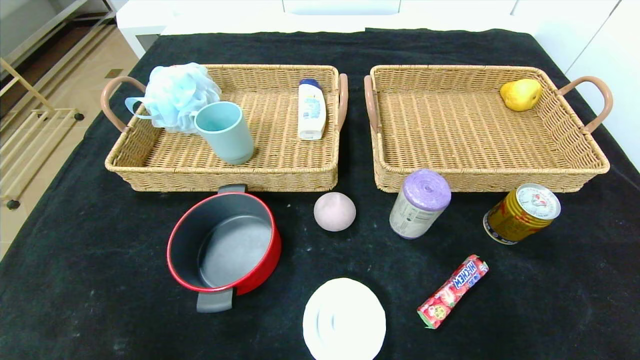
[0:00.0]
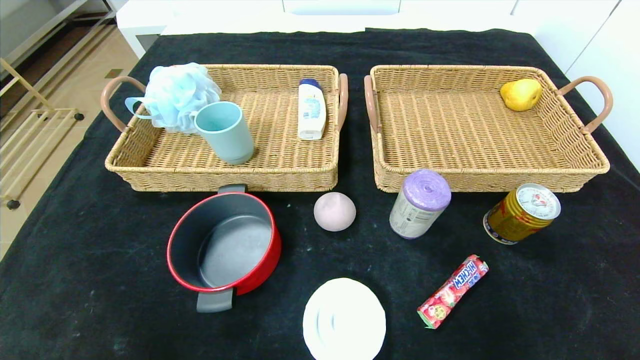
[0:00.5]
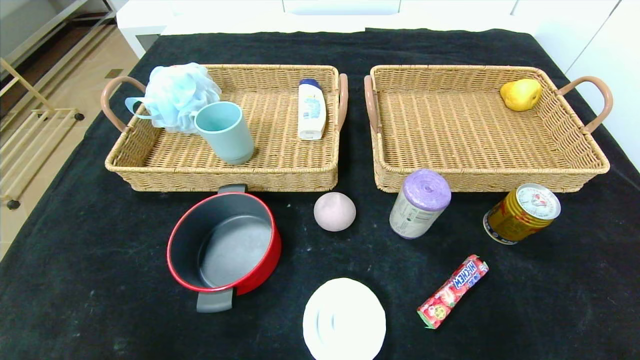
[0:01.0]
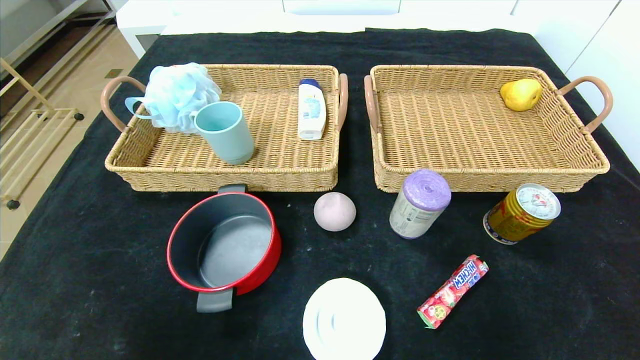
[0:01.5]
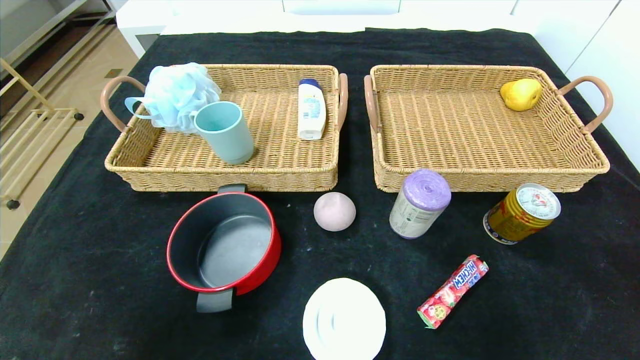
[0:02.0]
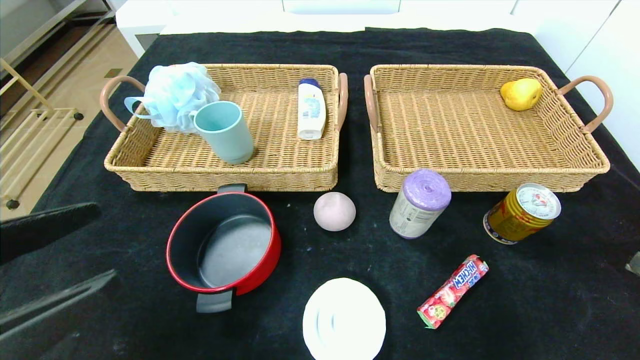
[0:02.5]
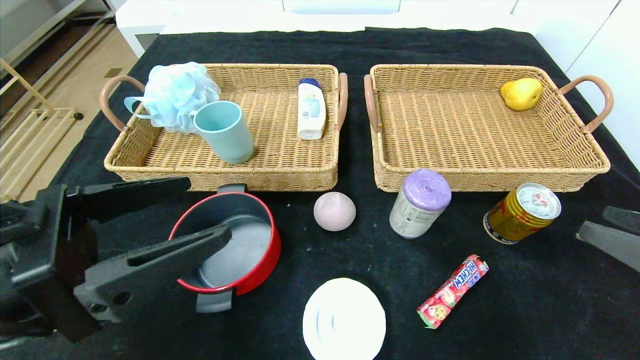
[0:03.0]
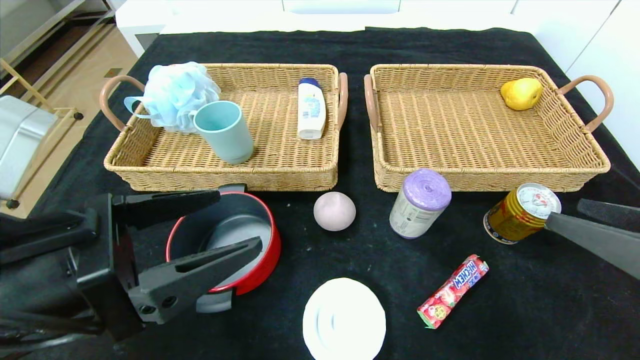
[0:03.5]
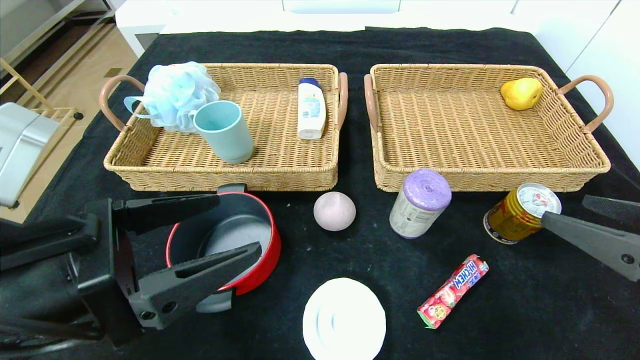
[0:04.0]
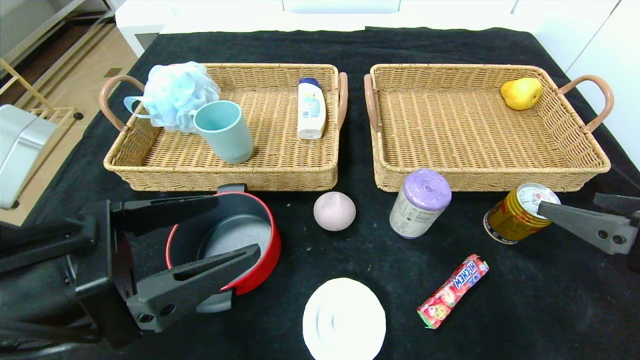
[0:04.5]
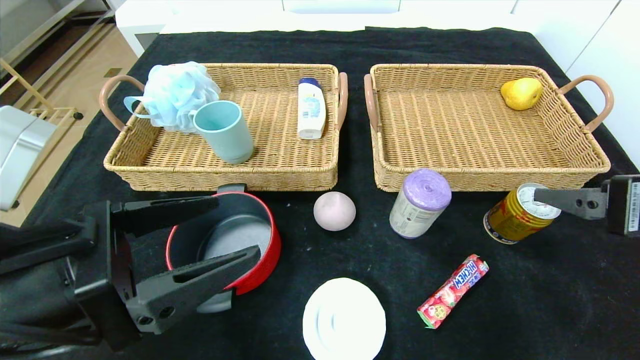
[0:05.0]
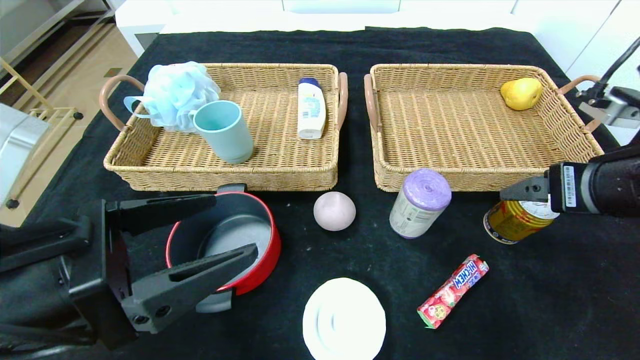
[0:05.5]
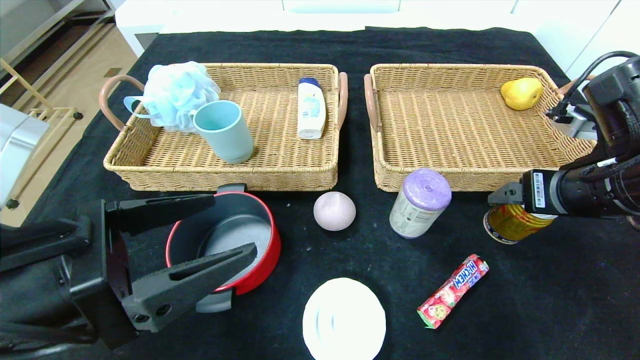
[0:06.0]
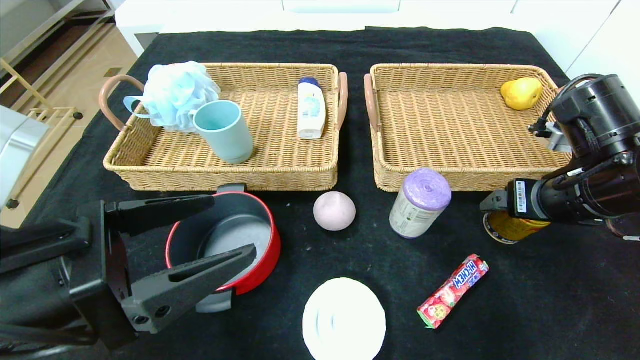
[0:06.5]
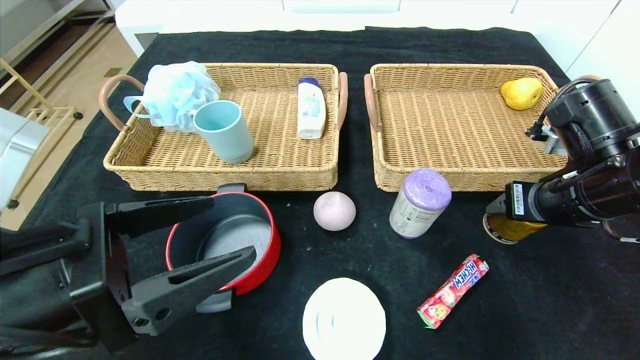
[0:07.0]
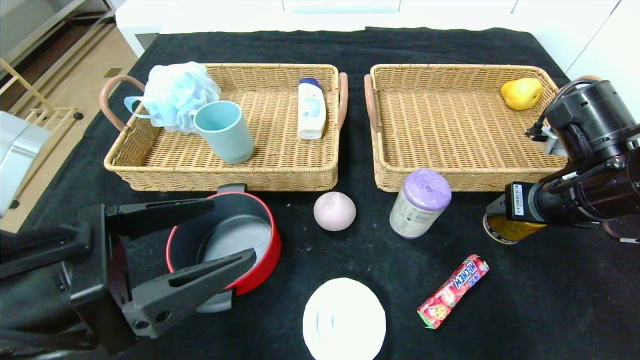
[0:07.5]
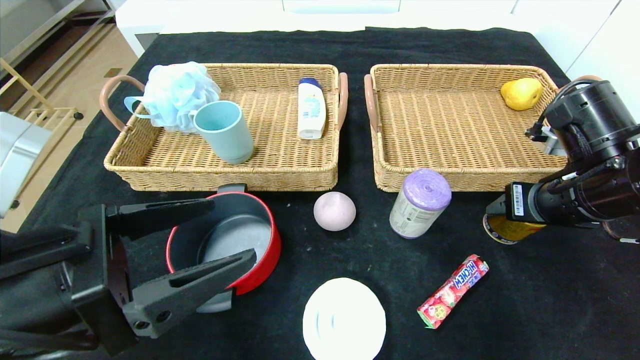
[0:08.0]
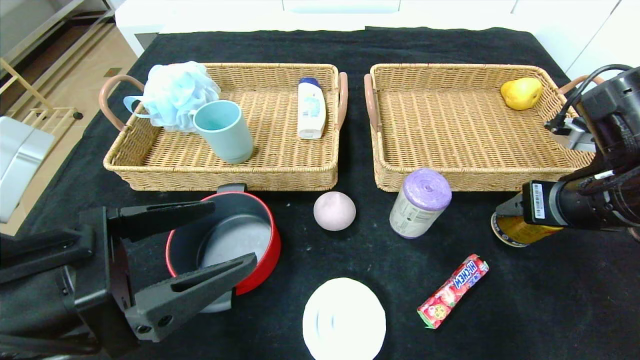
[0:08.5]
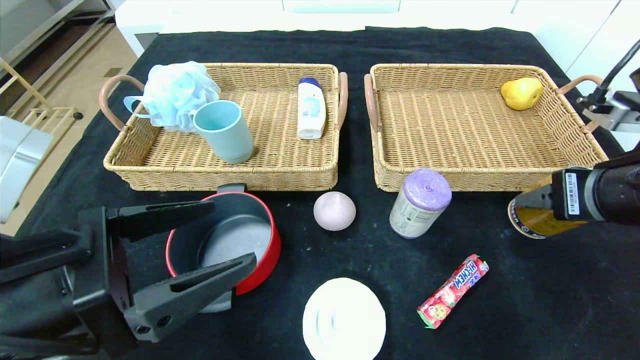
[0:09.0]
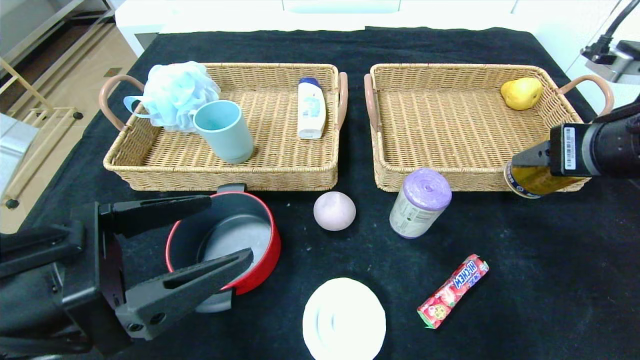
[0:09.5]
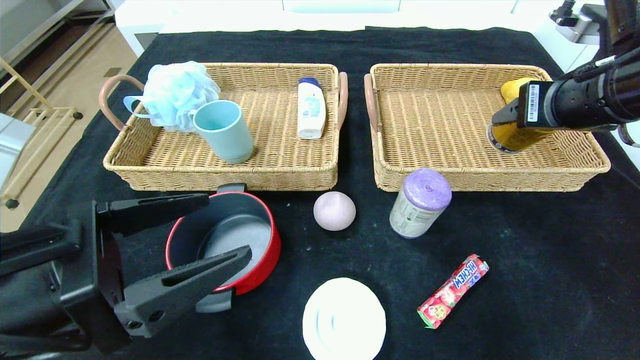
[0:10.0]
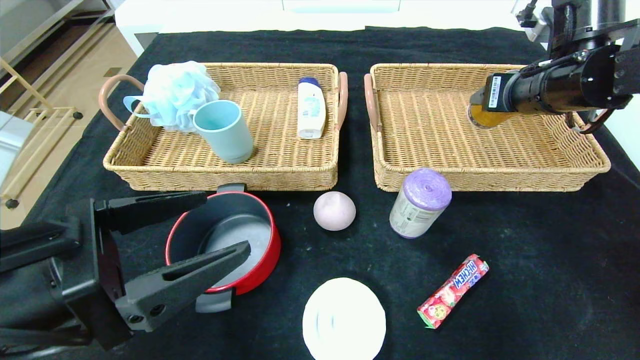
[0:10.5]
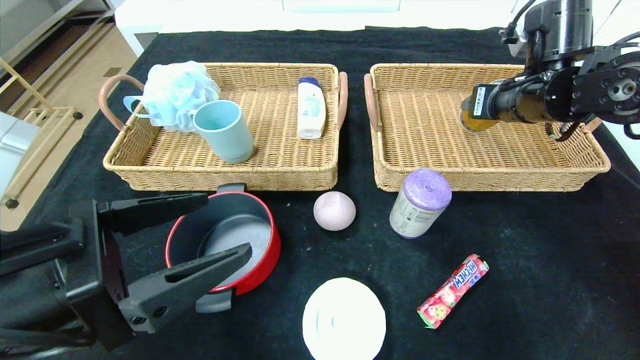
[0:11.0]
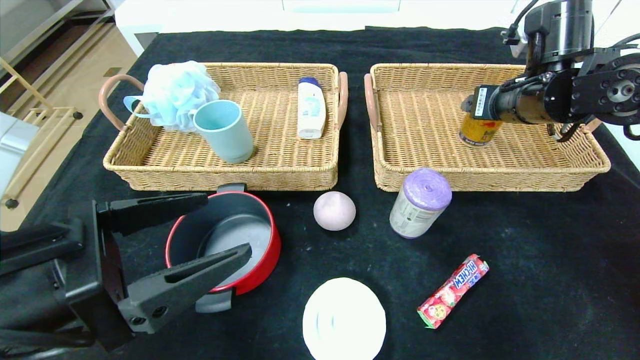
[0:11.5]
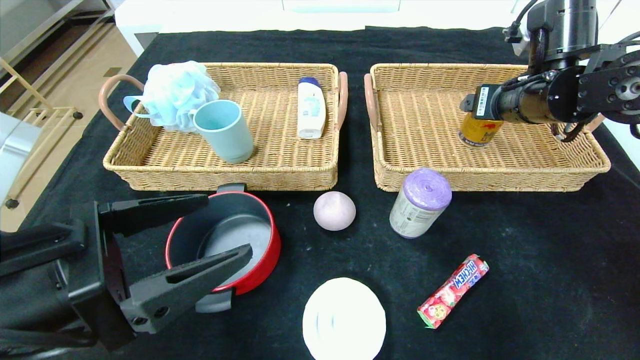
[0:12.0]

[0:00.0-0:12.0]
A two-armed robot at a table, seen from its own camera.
Step, 0:00.0 to 0:12.0: Grasp the Red Bull and put it in the right basket.
0:02.0 to 0:04.0: The left gripper heads forward and to the right, covering some 15 cm. Meanwhile the right gripper is displaced forward and to the left by roughly 15 cm.
0:04.0 to 0:06.0: The right gripper heads forward, covering approximately 10 cm.
0:06.0 to 0:08.0: The grippers stay close to where they were, moving slightly.
0:08.0 to 0:10.0: The right gripper heads upward, covering approximately 10 cm.
0:10.0 to 0:12.0: The right gripper travels forward by approximately 10 cm.

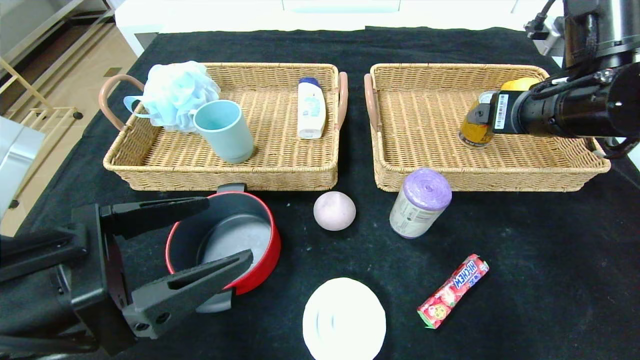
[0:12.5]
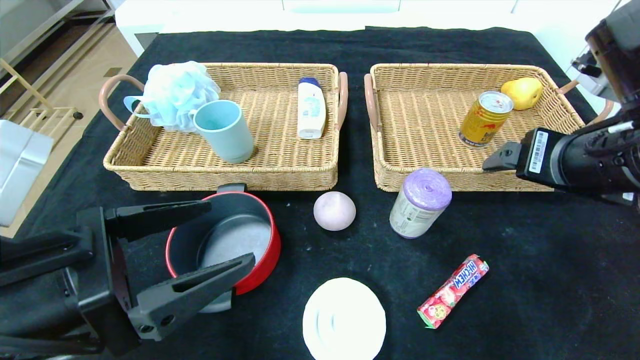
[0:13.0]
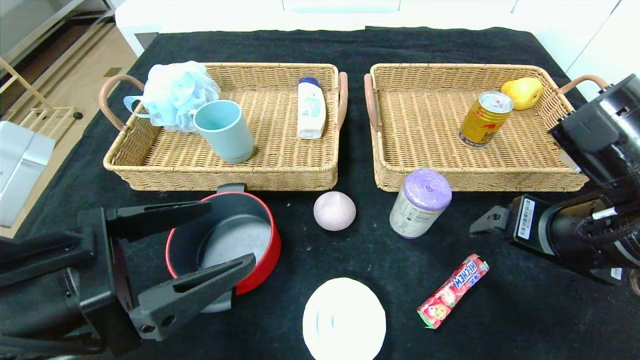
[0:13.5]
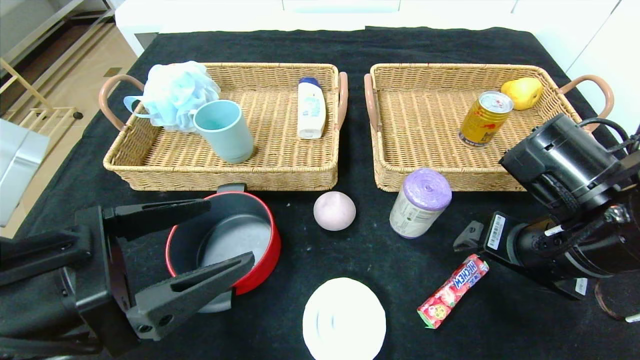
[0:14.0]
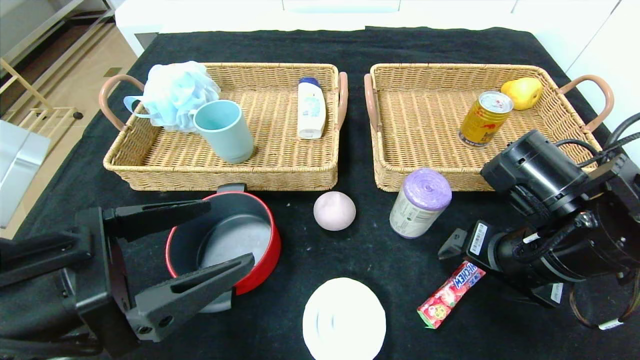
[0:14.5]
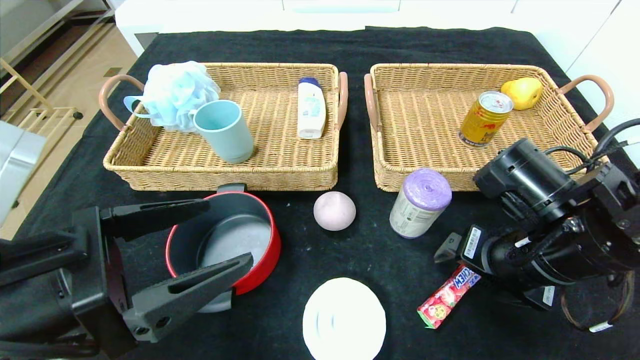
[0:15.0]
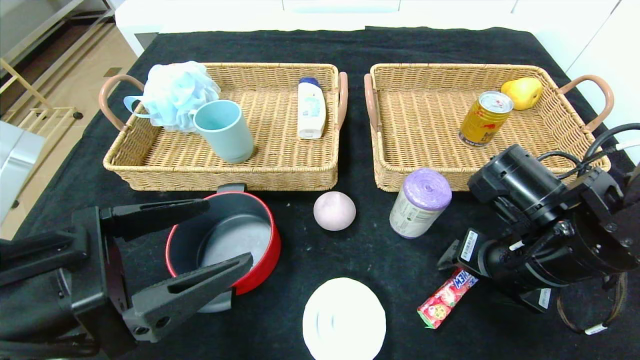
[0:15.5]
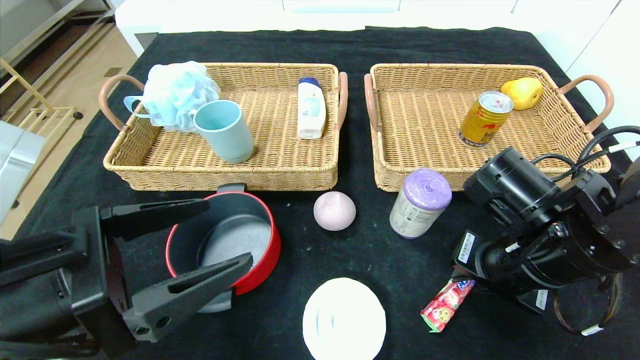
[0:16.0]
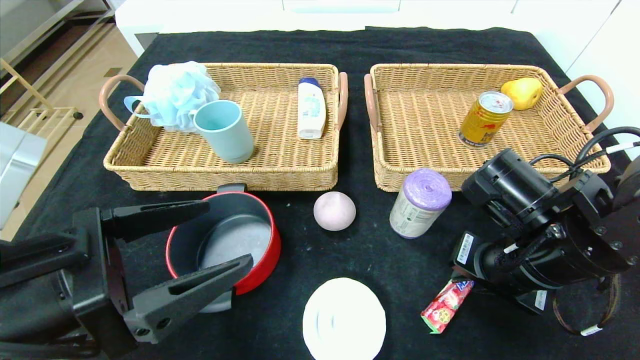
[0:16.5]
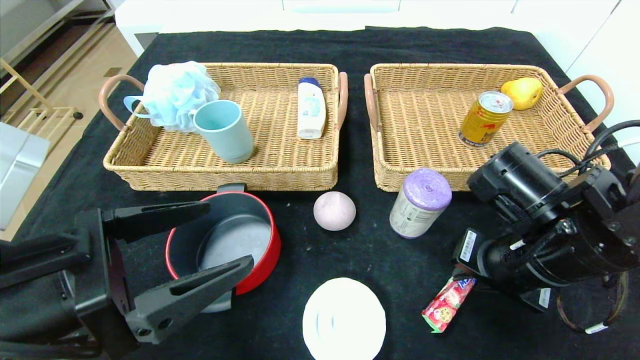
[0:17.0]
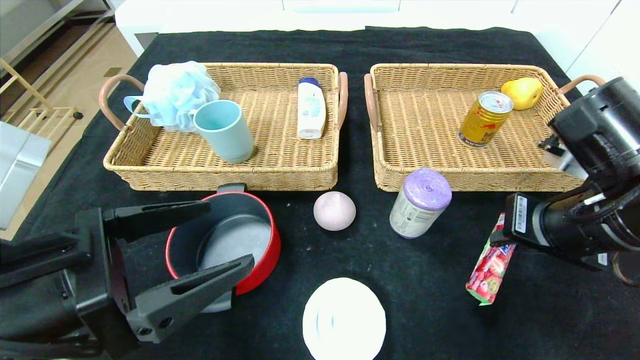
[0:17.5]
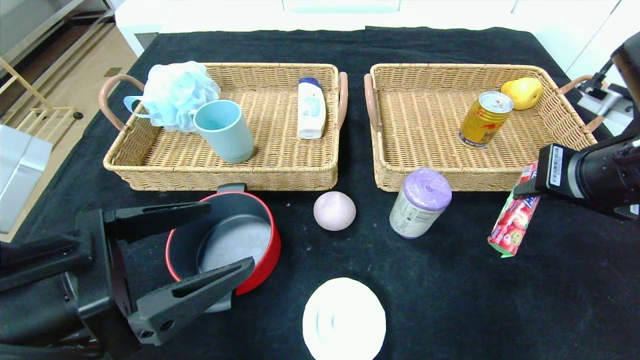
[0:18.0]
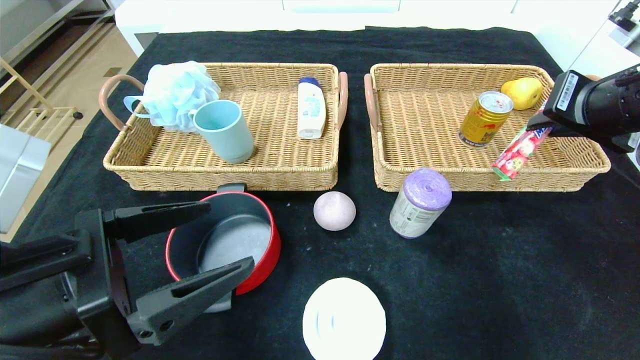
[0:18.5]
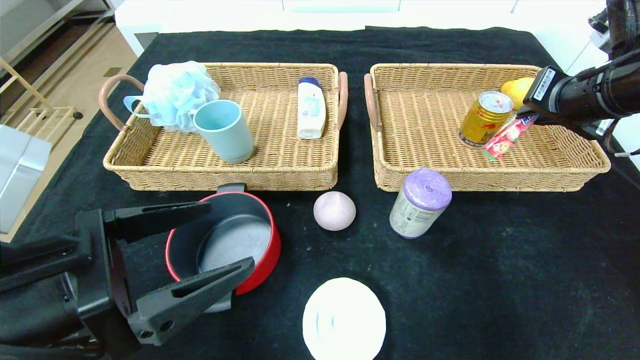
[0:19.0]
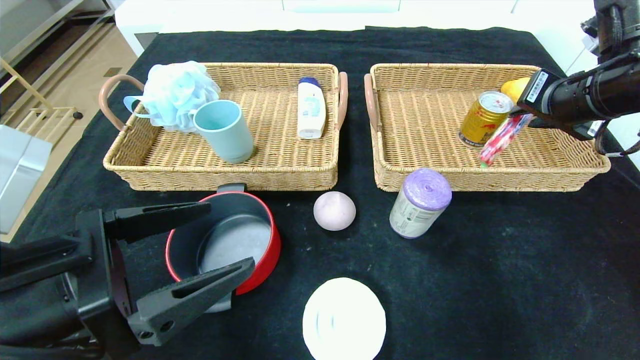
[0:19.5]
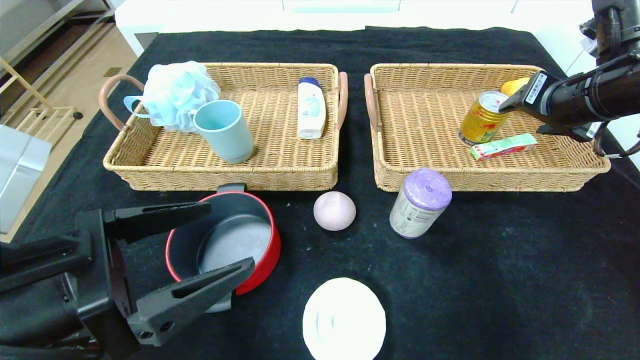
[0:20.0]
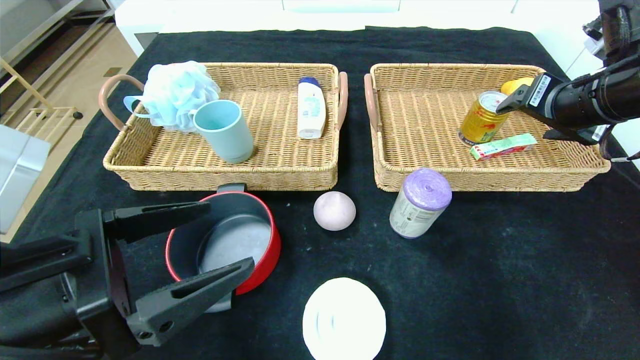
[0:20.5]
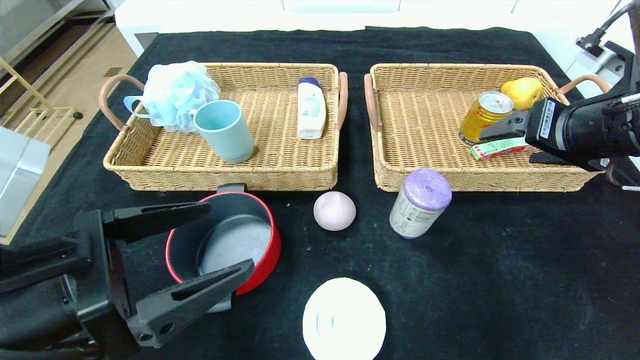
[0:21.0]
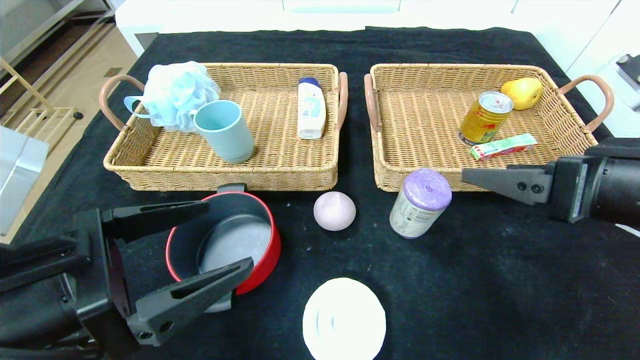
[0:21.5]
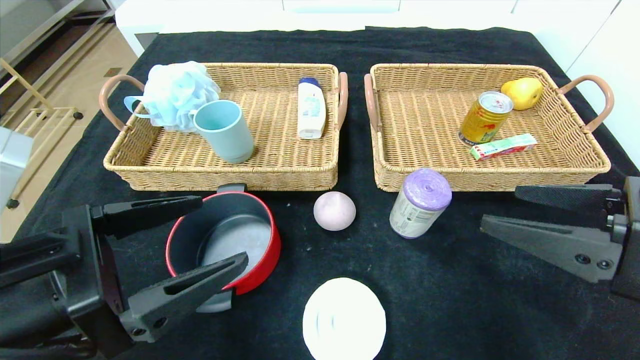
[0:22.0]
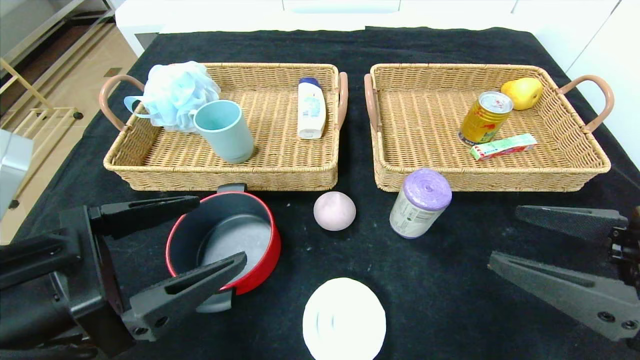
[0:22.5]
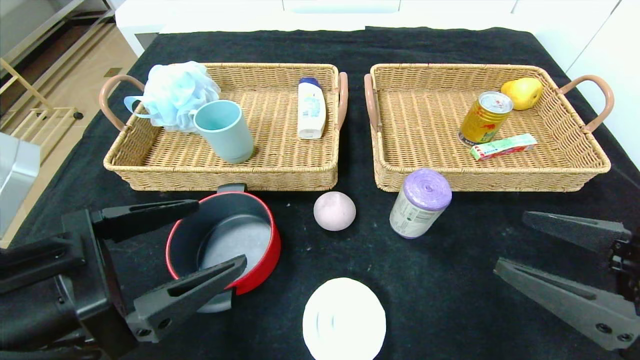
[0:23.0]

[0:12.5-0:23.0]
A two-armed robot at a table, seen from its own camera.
Step, 0:12.5 to 0:19.5: Grasp the fruit fudge and put it in the right basket.
0:12.5 to 0:14.5: The right gripper travels downward and backward by about 15 cm.
0:14.5 to 0:16.5: The right gripper closes its fingers.
0:16.5 to 0:19.0: The right gripper moves upward, to the right and forward, some 20 cm.
0:19.0 to 0:21.0: The right gripper shifts some 5 cm backward, and opens its fingers.
0:21.0 to 0:23.0: The right gripper travels backward and downward by some 15 cm.
